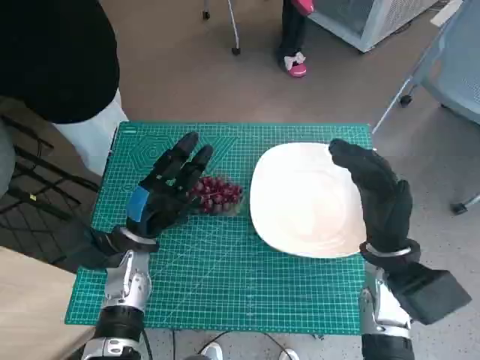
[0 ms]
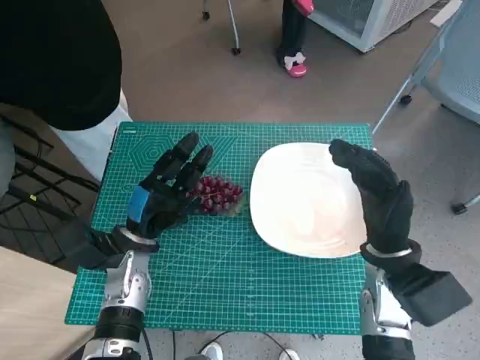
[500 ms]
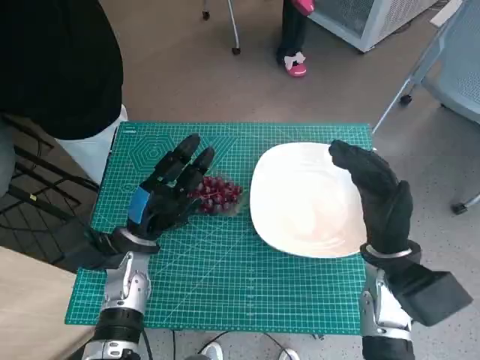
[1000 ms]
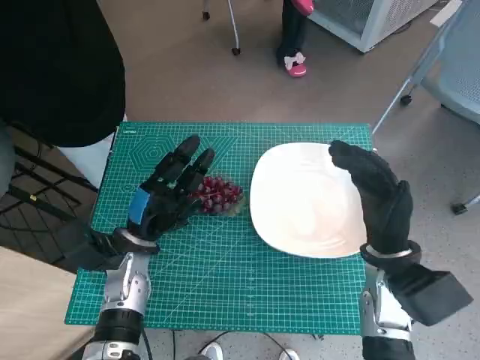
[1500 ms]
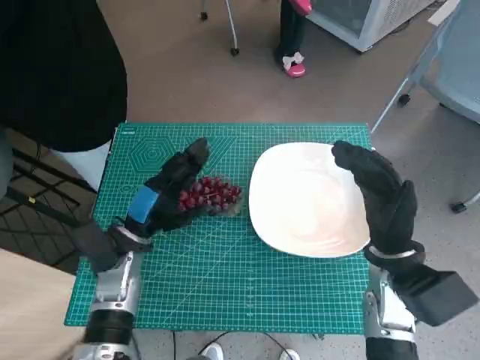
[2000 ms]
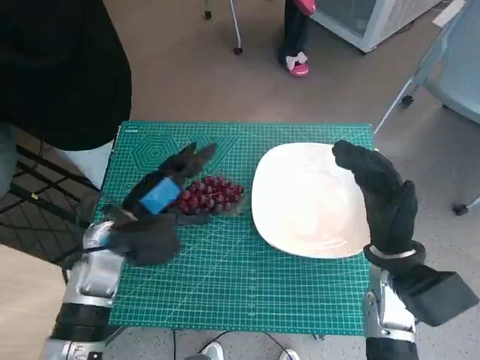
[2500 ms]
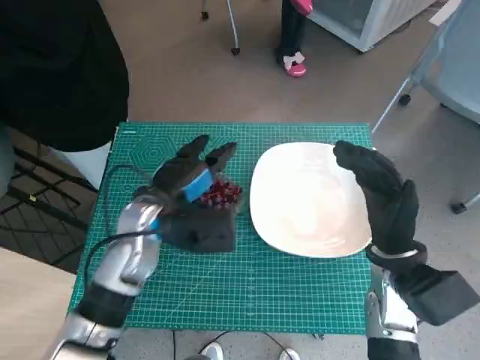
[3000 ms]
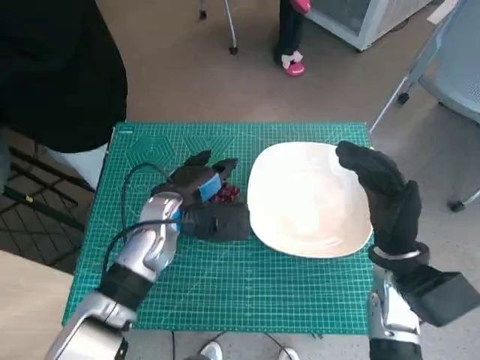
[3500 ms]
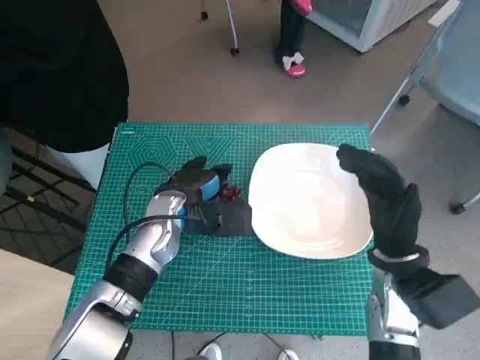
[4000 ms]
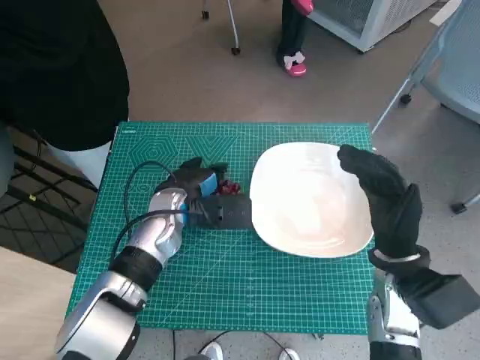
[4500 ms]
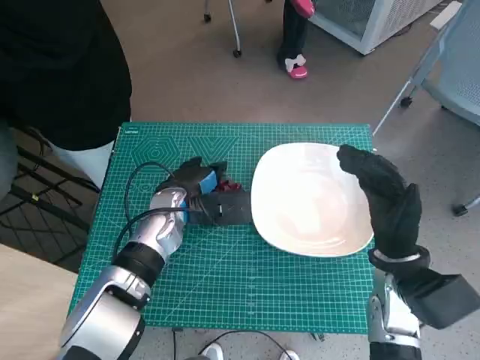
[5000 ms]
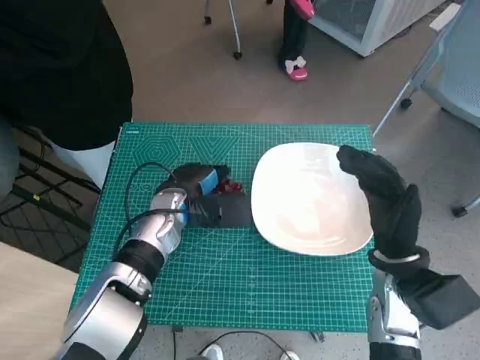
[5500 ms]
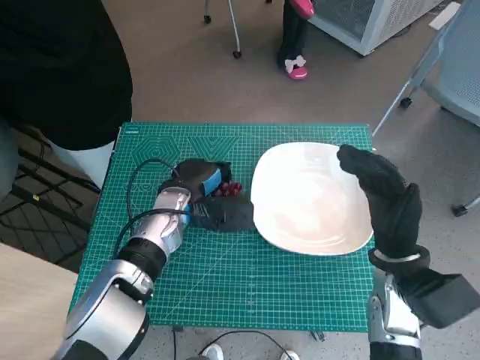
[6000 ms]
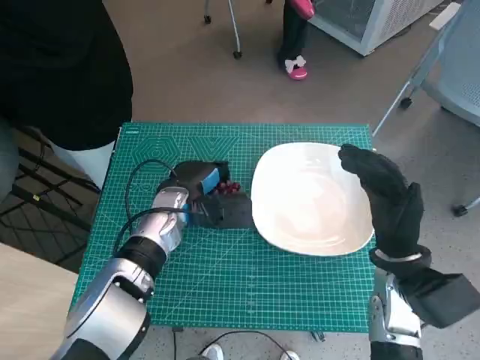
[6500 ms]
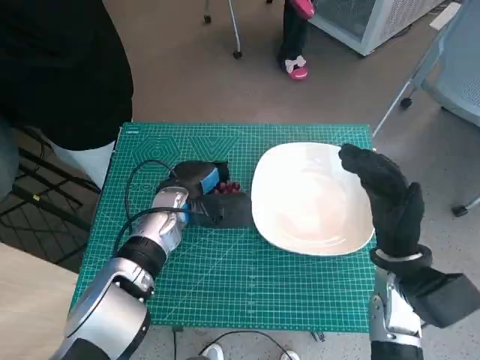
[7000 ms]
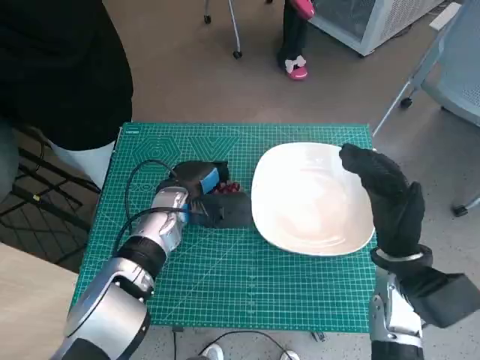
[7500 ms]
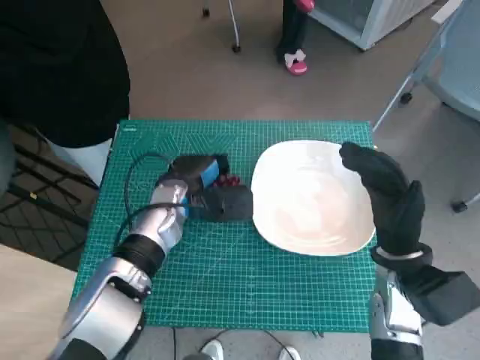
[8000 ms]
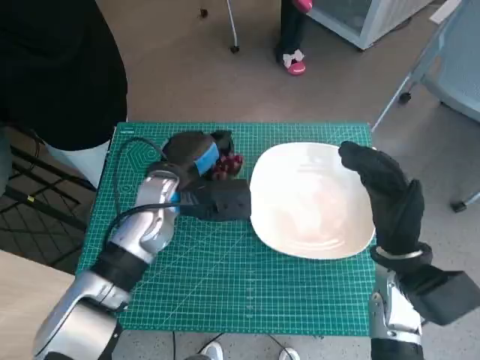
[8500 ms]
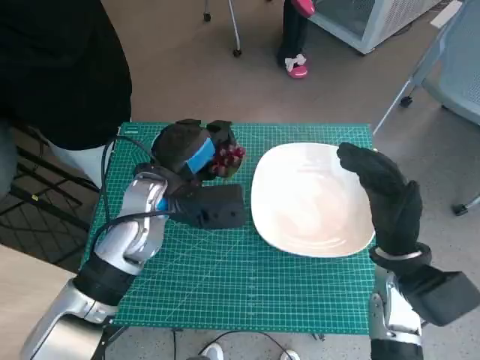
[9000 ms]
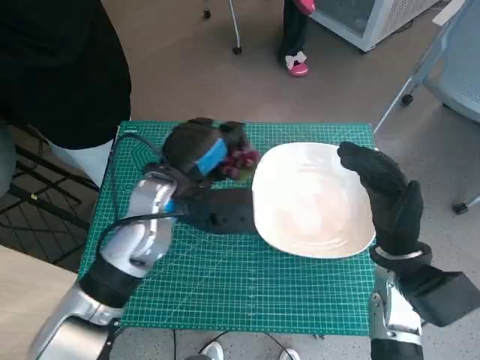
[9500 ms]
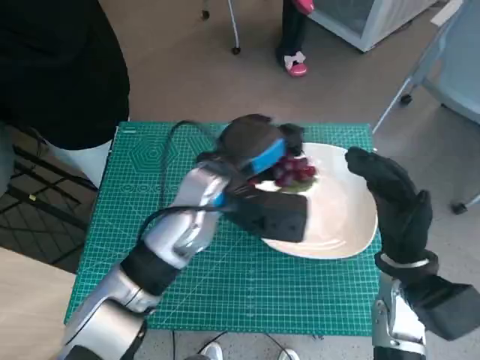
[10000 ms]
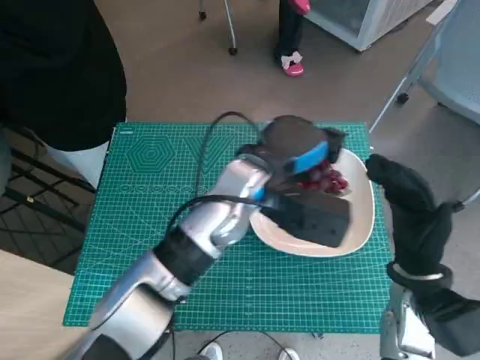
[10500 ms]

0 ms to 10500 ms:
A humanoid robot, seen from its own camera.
Task of the whole recording: Pick up the grapes and put them on the plate.
Step, 0 ms to 6000 ms: Grasp the grapes with left hand.
2000 ms to 4000 ms: The left hand travels to the right and forward by about 10 cm.
4000 ms to 6500 ms: There are only small adjustments of the hands.
6500 ms to 8500 ms: The left hand travels upward by approximately 5 cm.
8500 ms to 10500 ms: The left hand heads to the right and upward, covering roughly 15 cm.

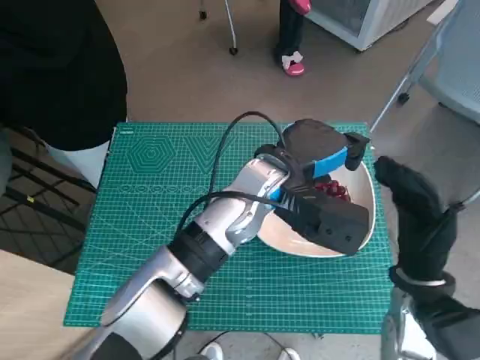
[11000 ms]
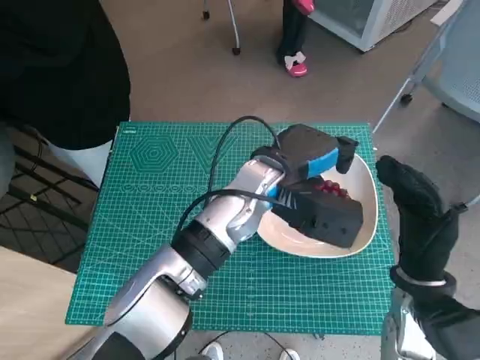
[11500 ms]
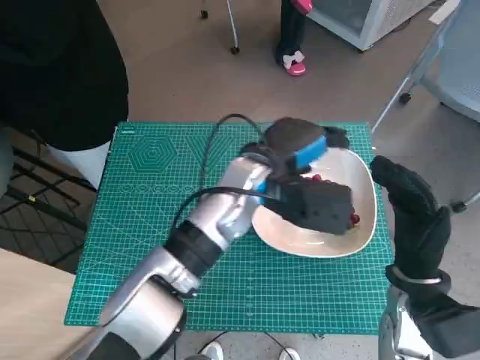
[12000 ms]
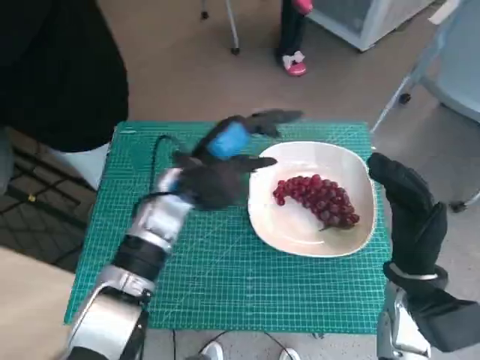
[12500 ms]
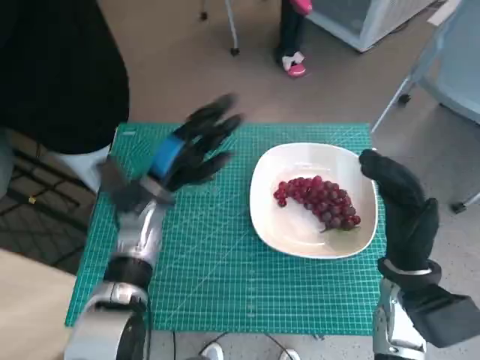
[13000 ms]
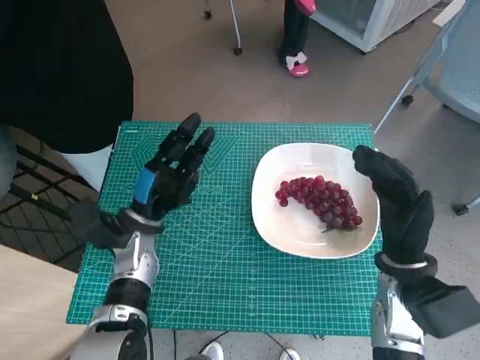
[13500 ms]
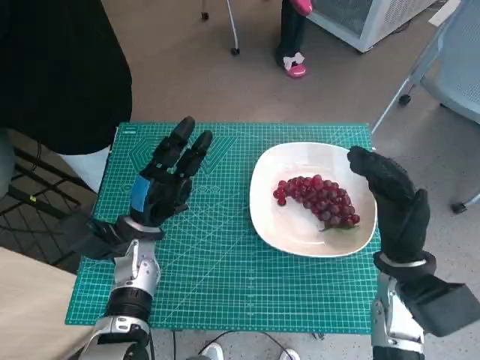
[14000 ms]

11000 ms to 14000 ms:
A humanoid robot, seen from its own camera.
Task of the whole recording: Pick up the grapes and put them on the plate.
11000 ms to 12500 ms: The left hand travels to the left by about 10 cm.
12500 ms to 14000 ms: The left hand is displaced downward and to the left by approximately 15 cm.

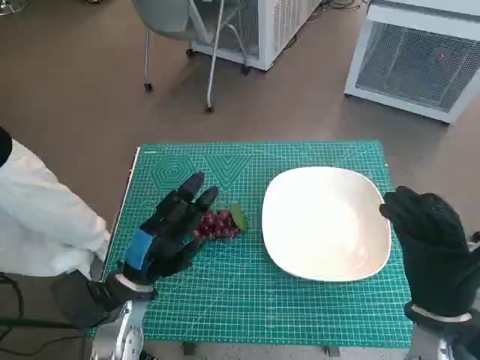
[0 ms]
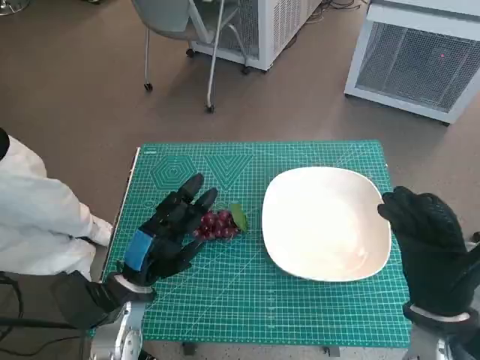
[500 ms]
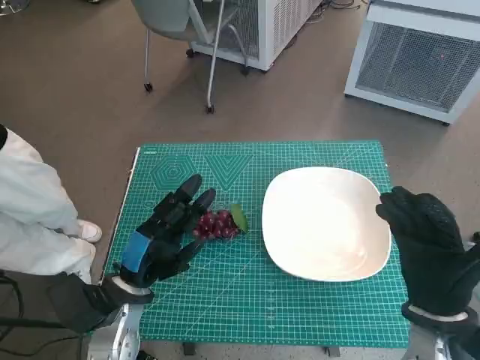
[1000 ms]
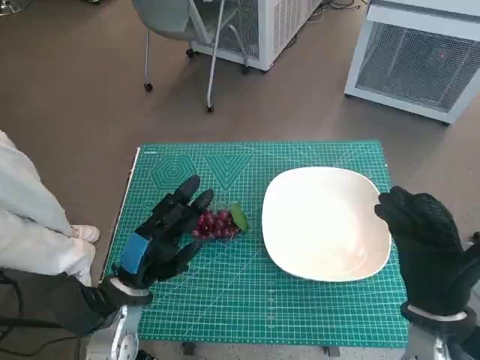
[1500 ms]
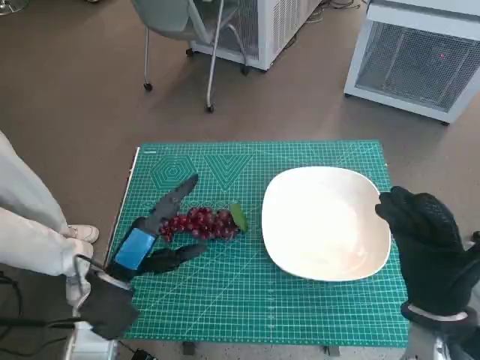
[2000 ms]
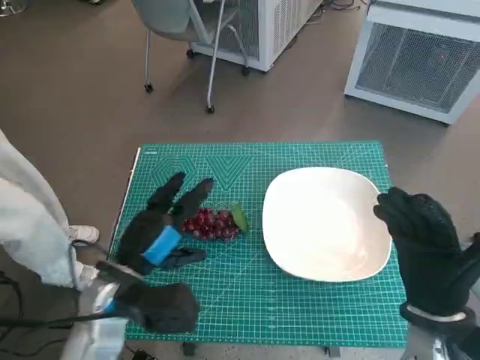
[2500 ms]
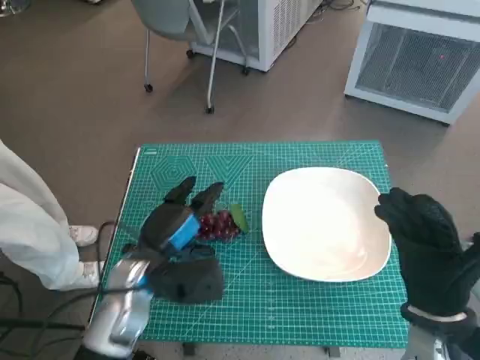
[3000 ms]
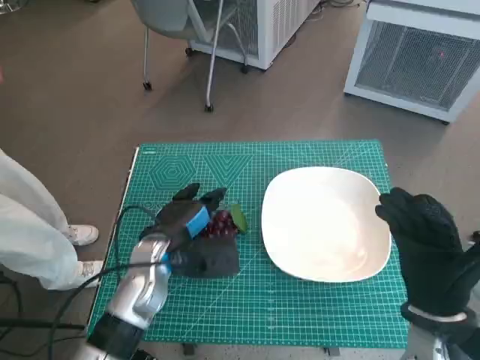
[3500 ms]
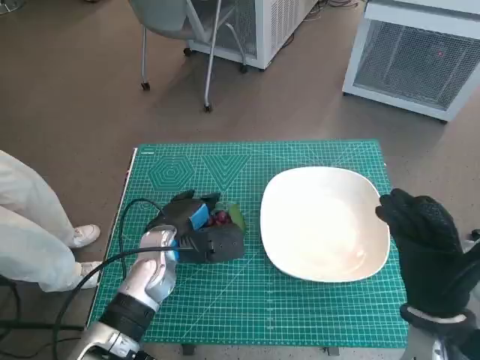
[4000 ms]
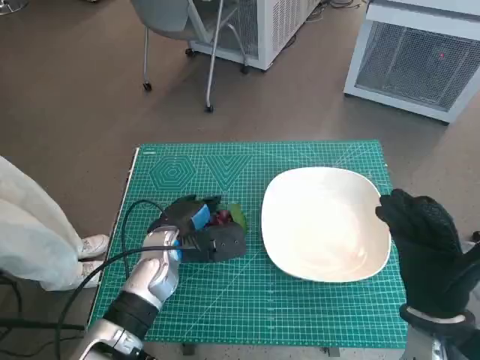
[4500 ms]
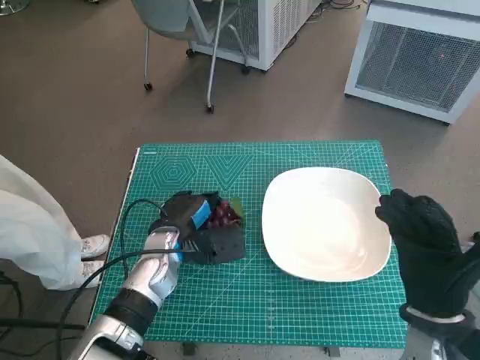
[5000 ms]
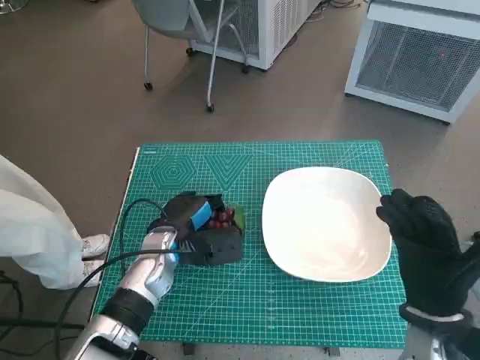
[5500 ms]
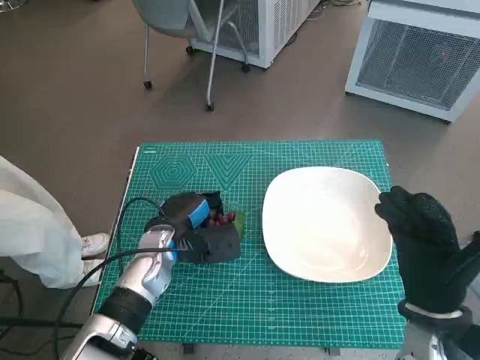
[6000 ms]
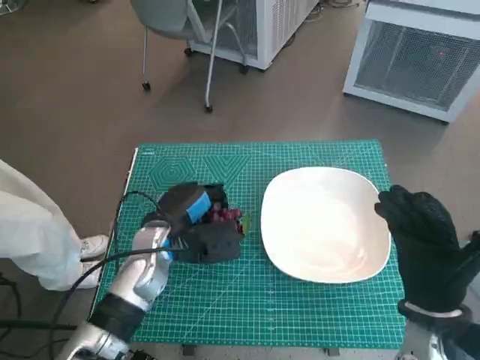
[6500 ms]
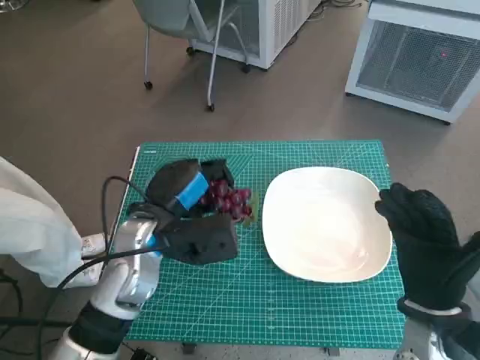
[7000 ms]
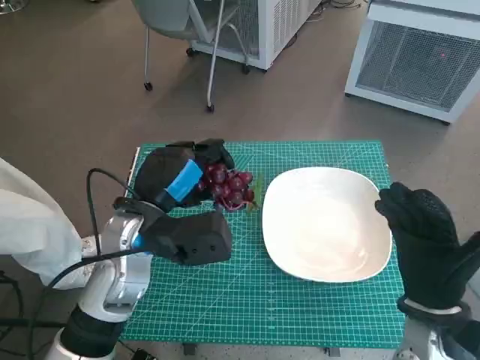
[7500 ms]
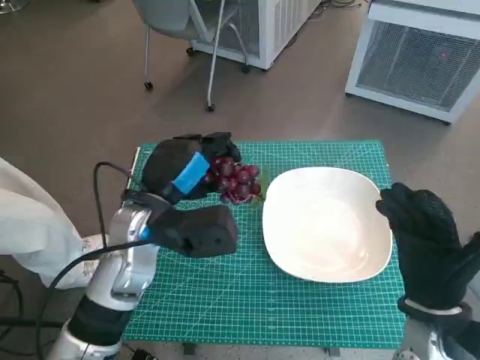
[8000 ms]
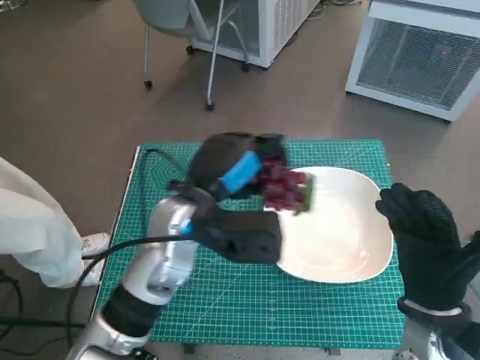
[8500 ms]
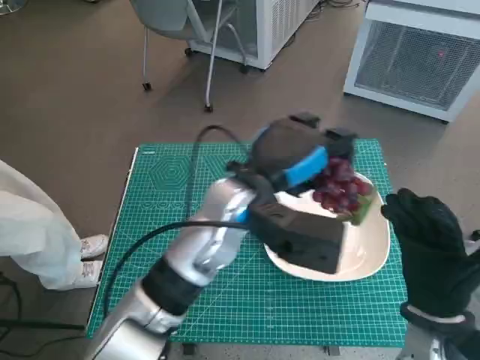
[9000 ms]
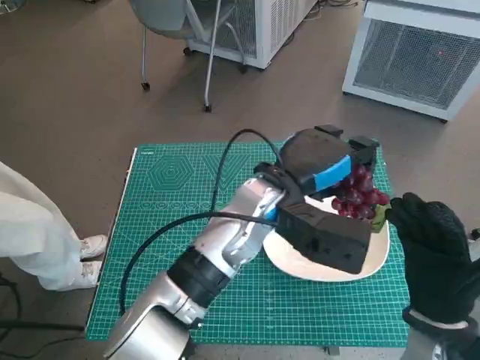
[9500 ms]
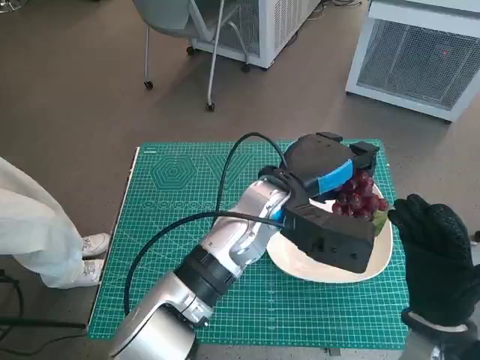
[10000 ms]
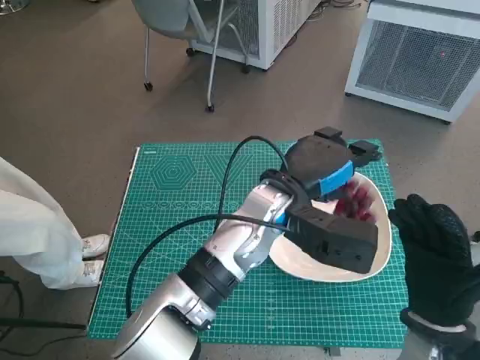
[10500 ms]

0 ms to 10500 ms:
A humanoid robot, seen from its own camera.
Task of the whole recording: Pick up the grapes and put them on the plate.
Step, 0 ms to 5500 ms: Grasp the grapes with left hand.
2000 ms to 4000 ms: The left hand shifts about 10 cm forward and to the right.
4000 ms to 6500 ms: The hands stay close to where they were, moving slightly.
6500 ms to 8500 ms: The left hand heads upward and to the right, covering some 10 cm.
8500 ms to 10500 ms: The left hand travels to the right by roughly 10 cm.

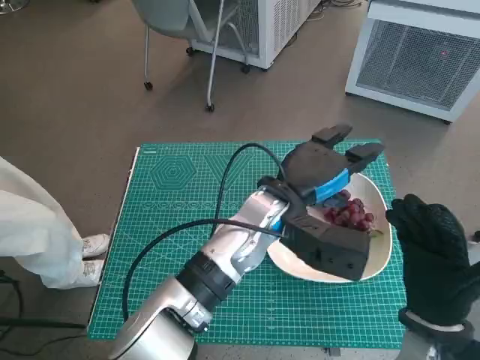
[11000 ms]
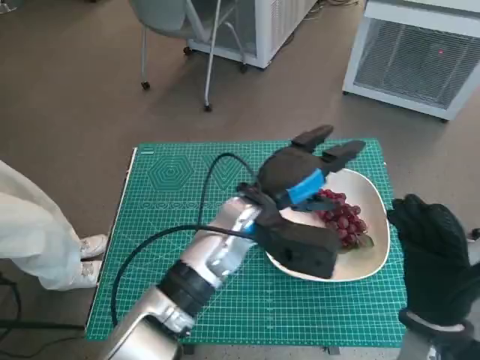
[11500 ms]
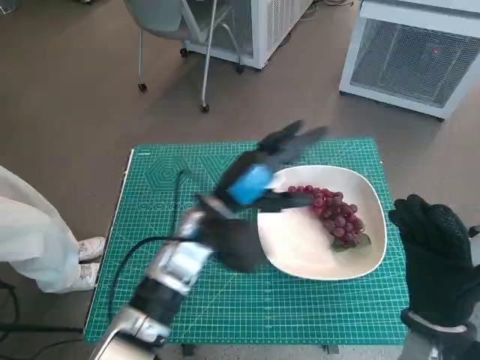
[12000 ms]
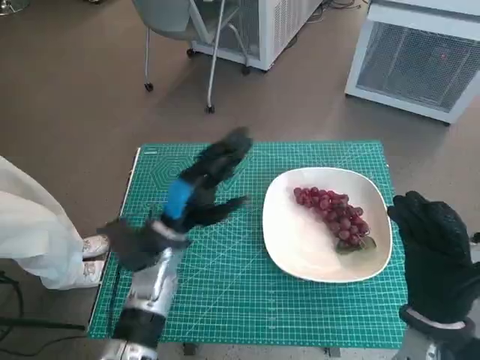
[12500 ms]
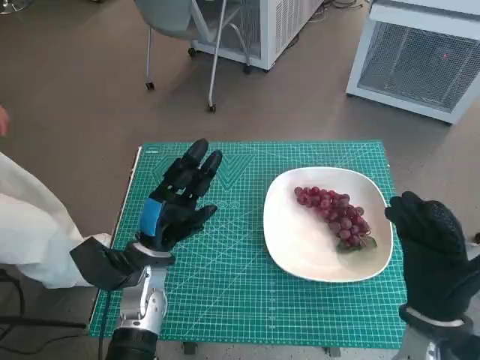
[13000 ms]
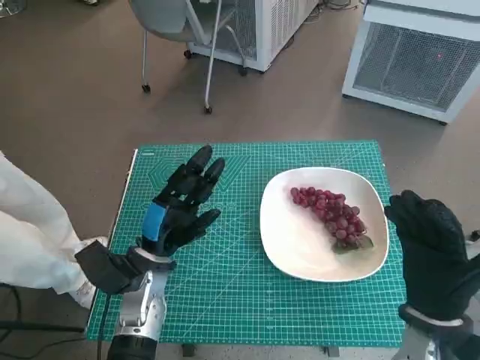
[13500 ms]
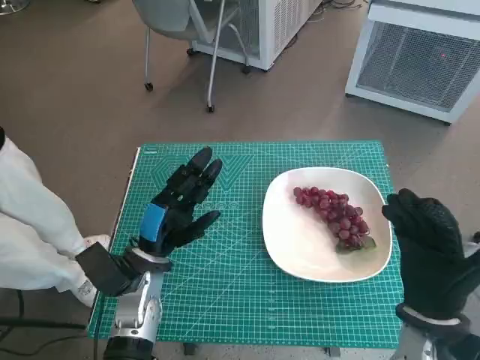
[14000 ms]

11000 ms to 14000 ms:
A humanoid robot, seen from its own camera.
Task of the whole recording: Pick up the grapes and put them on the plate.
11000 ms to 12500 ms: The left hand travels to the left and downward by approximately 15 cm.
12500 ms to 14000 ms: The left hand shifts by about 5 cm.
